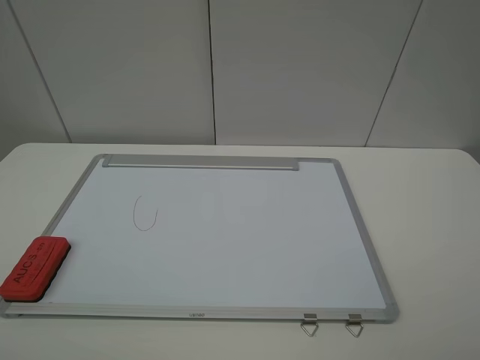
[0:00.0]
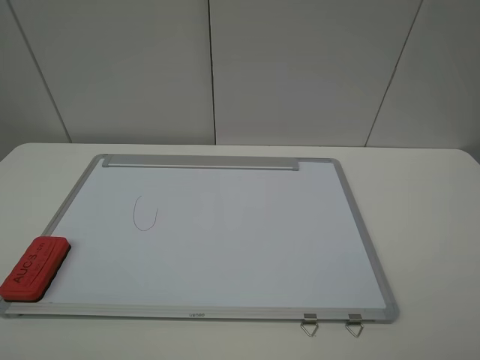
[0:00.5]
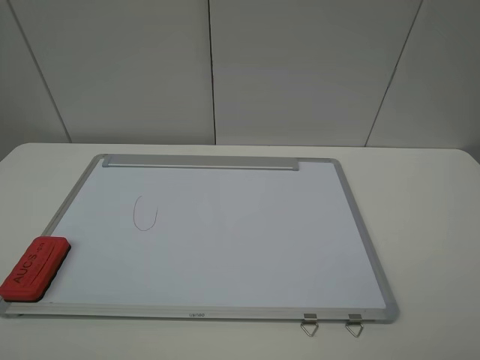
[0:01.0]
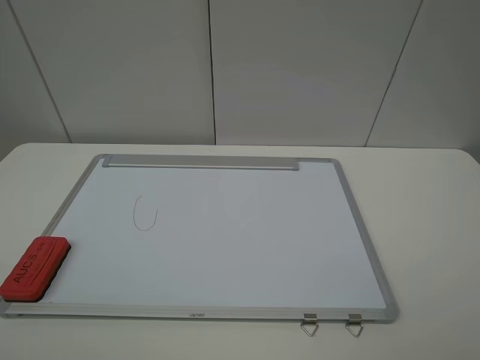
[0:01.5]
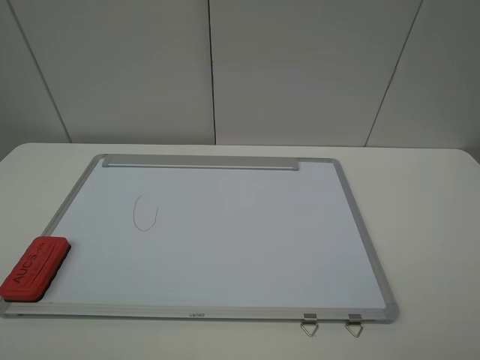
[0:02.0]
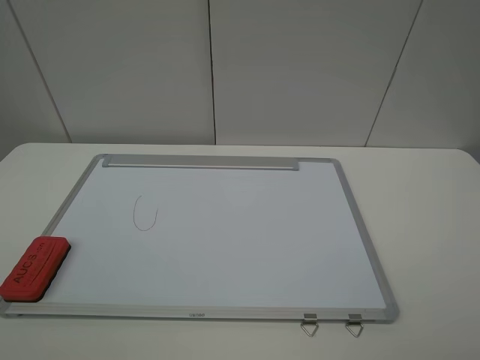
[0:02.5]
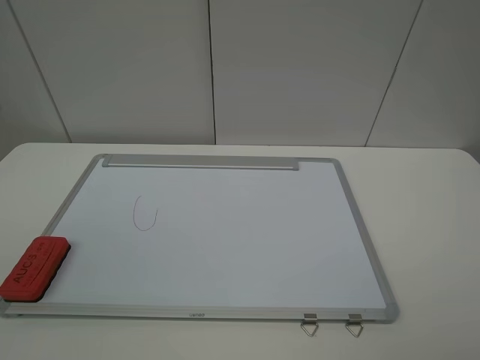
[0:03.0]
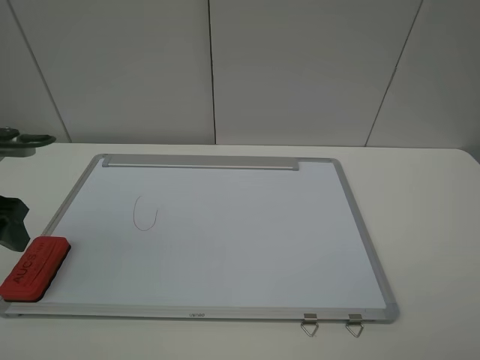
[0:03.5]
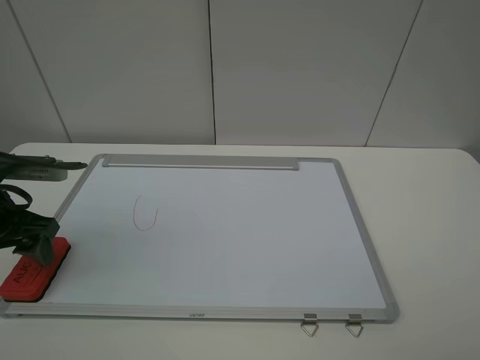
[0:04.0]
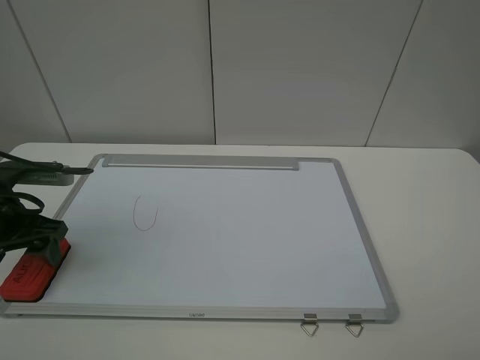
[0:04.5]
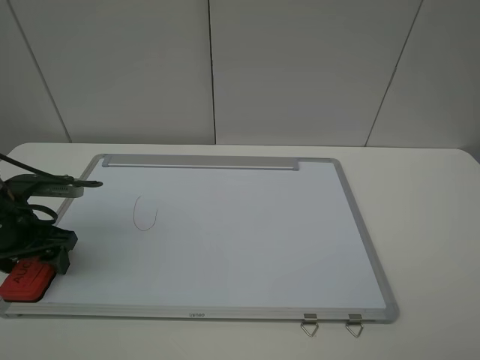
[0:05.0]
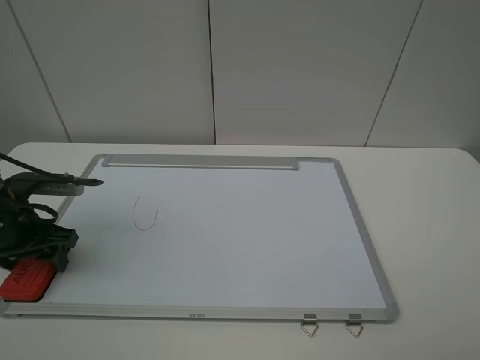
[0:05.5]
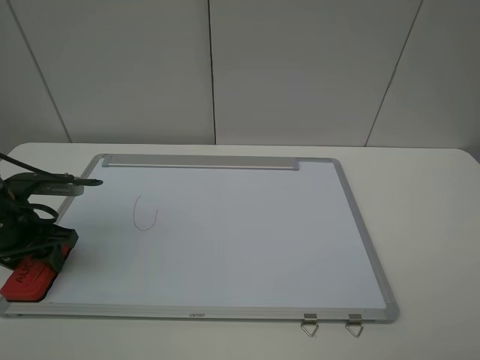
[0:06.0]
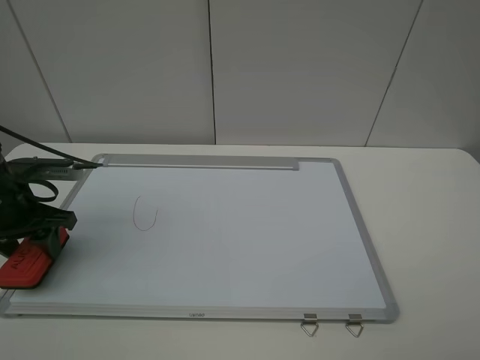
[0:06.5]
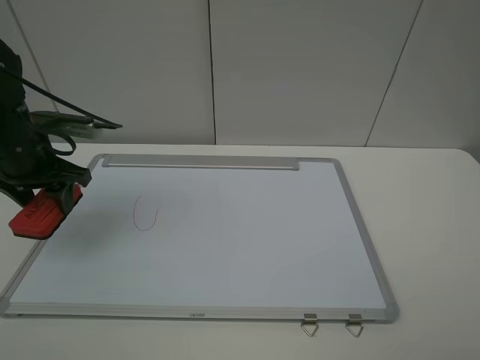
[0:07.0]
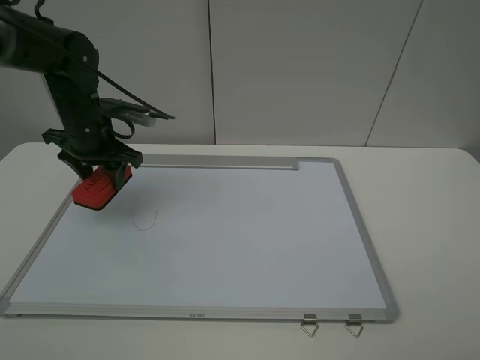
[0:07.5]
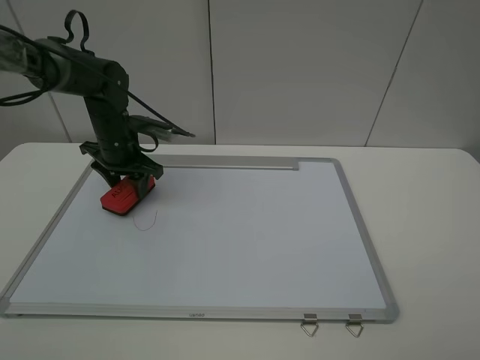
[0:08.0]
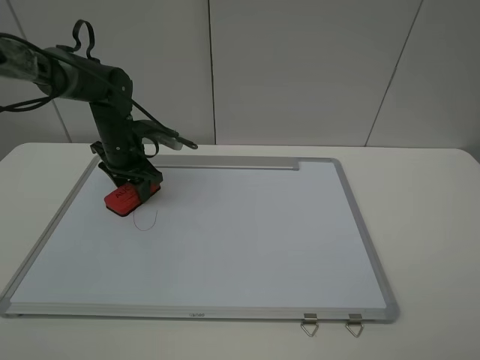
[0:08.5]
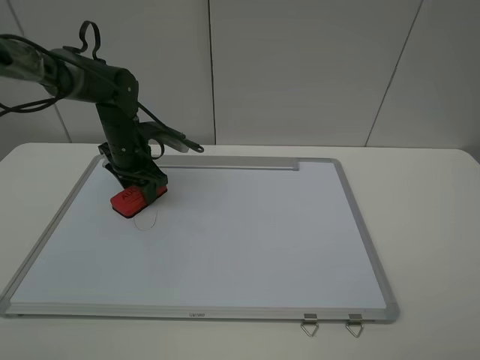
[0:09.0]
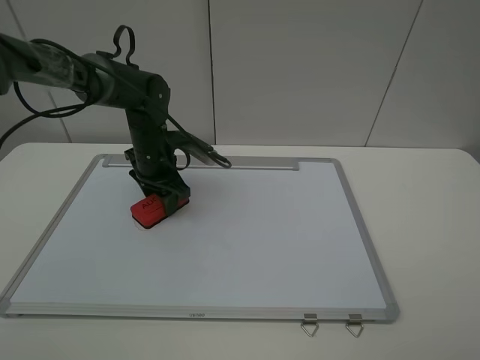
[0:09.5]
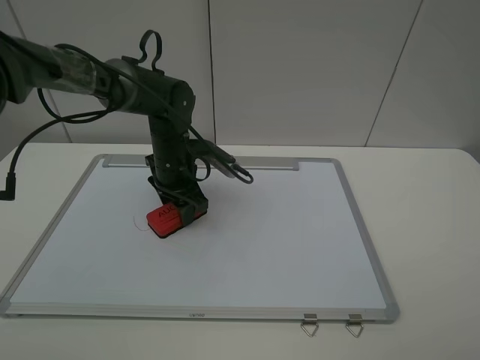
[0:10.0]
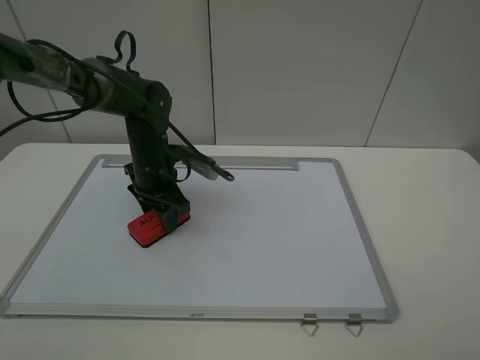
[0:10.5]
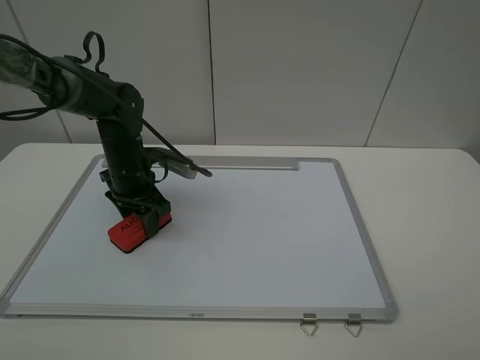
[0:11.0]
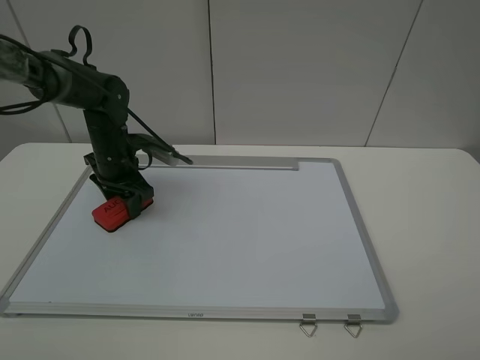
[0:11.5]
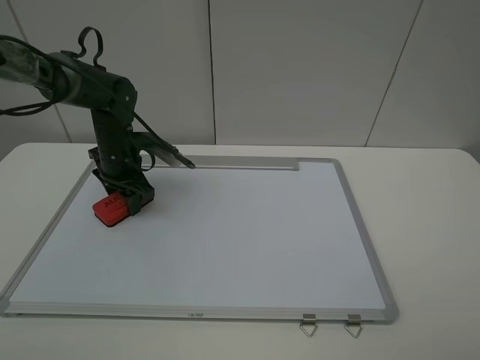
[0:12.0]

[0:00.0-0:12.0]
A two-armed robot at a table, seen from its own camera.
Step, 0:00.0 to 0:05.5: Grasp the eraser with the left gripper.
0:02.0 to 0:04.0: The left gripper heads forward and downward, covering some 25 cm.
0:04.0 to 0:06.0: The left gripper closes up.
0:06.0 to 0:08.0: The left gripper goes roughly 20 cm forward and to the right.
0:08.0 to 0:10.0: The left gripper is displaced to the right by roughly 10 cm.
0:10.0 to 0:12.0: The left gripper travels to the left by some 10 cm.

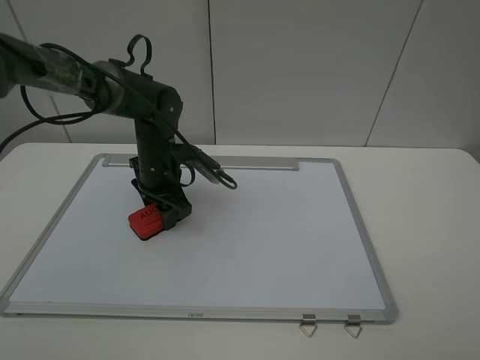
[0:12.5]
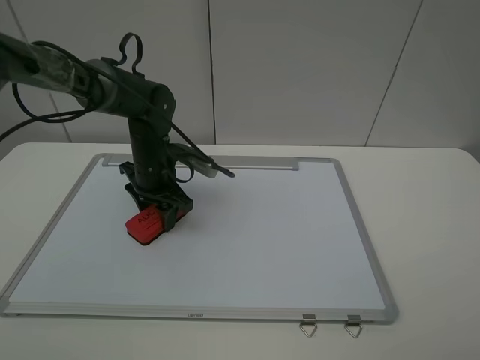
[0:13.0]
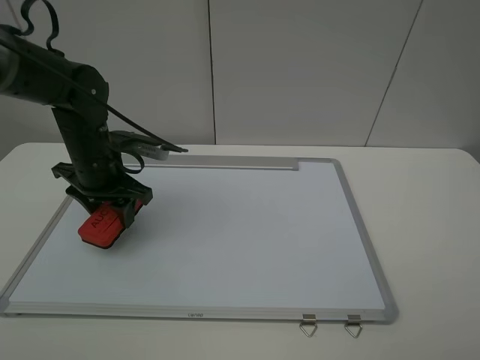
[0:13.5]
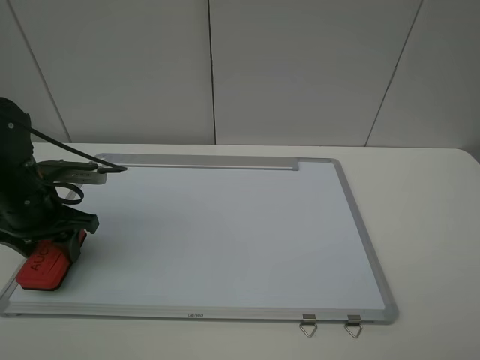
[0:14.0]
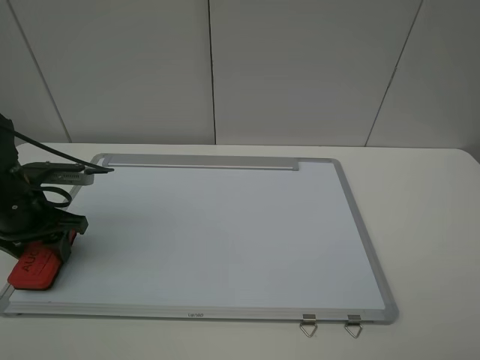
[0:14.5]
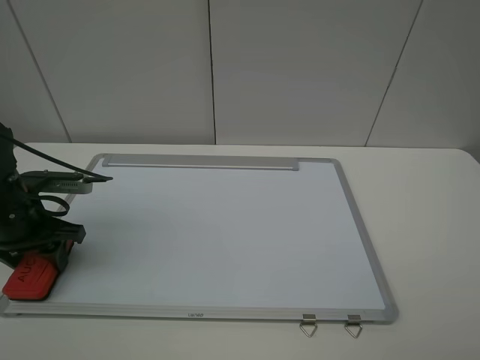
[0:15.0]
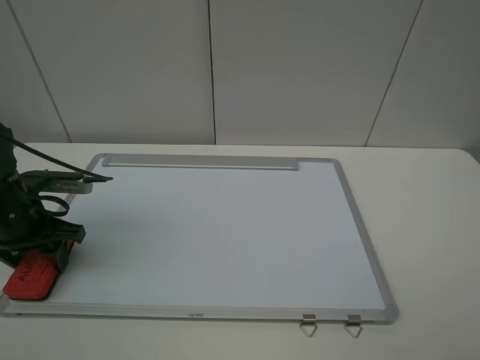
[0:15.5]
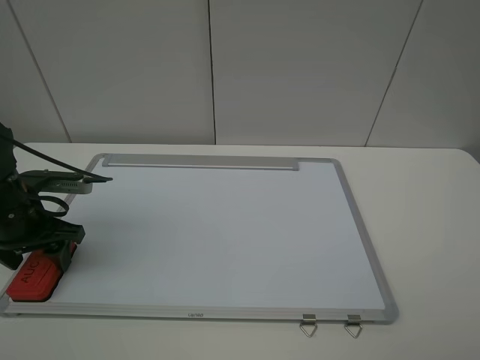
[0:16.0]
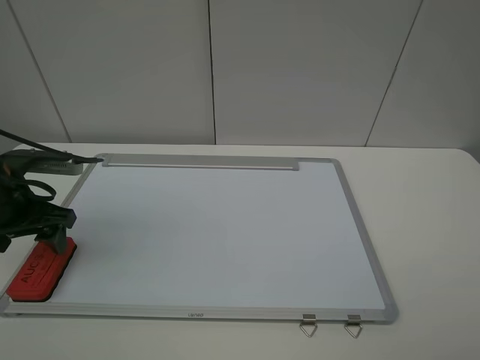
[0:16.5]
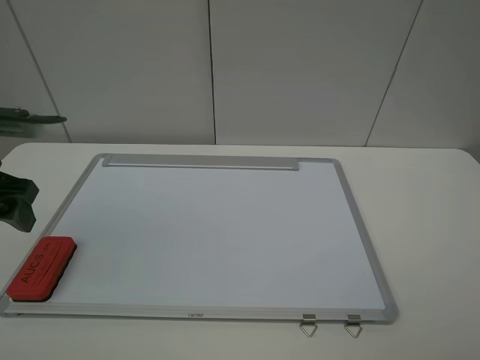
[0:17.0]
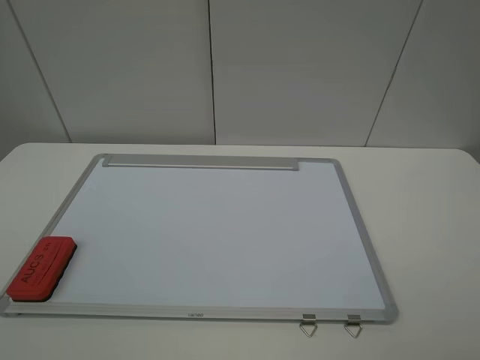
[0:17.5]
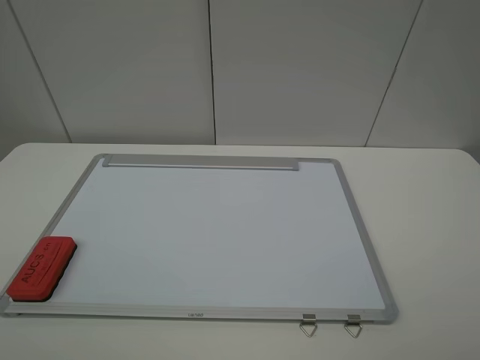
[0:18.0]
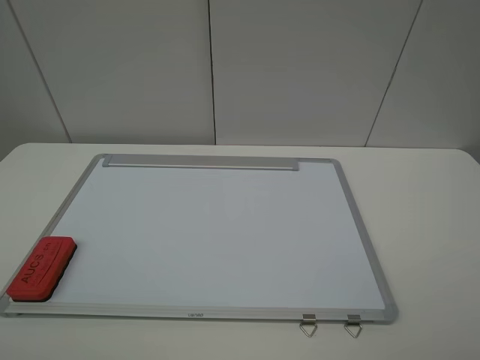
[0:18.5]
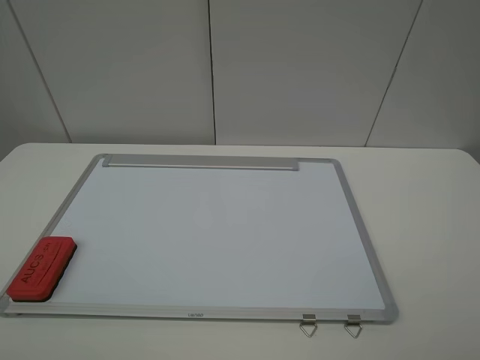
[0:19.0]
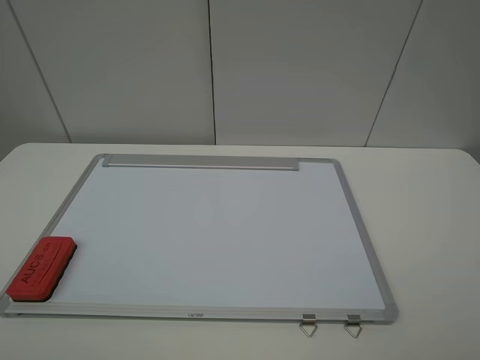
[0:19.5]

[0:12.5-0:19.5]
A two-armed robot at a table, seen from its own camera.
Step, 0:13.5 to 0:16.5: Place the eraser with the left gripper.
0:12.5 to 0:14.5: The left gripper is displaced to the left and backward by roughly 20 cm.
0:14.5 to 0:16.0: The left gripper opens its fingers.
0:16.0 to 0:17.5: The left gripper shifts some 25 cm upward and backward, and opens its fingers.

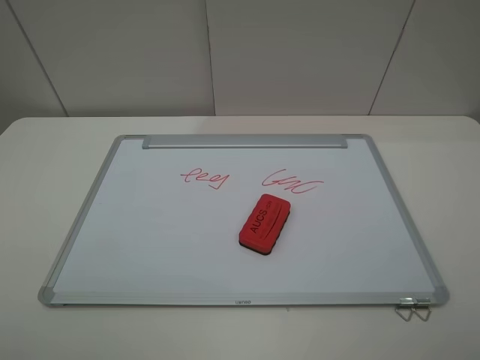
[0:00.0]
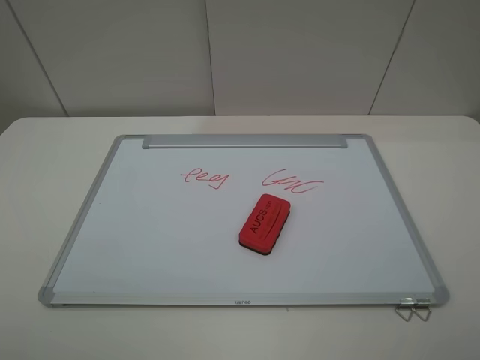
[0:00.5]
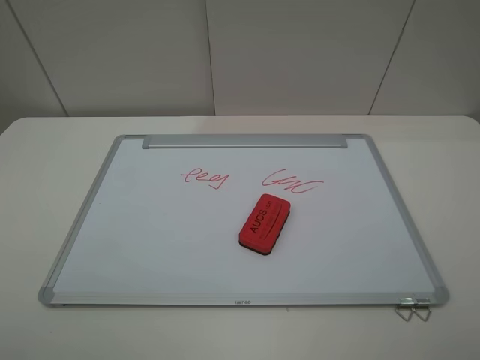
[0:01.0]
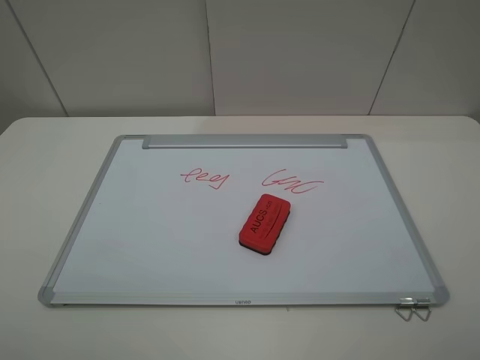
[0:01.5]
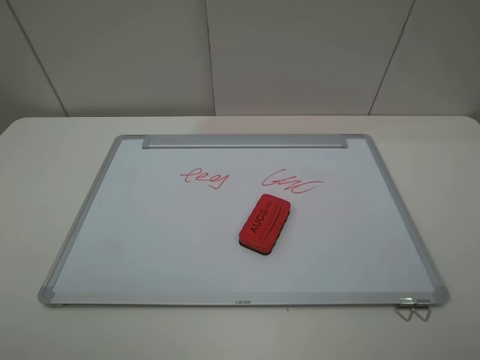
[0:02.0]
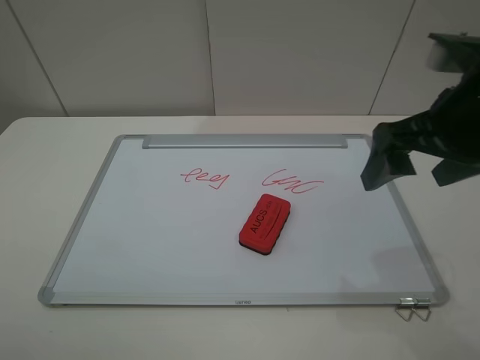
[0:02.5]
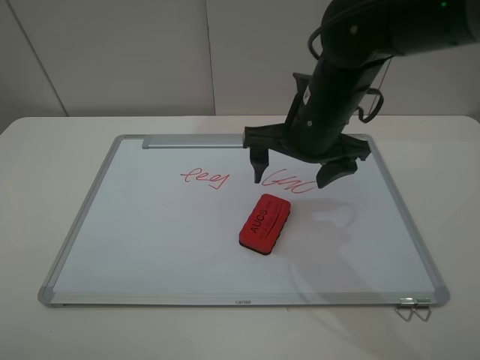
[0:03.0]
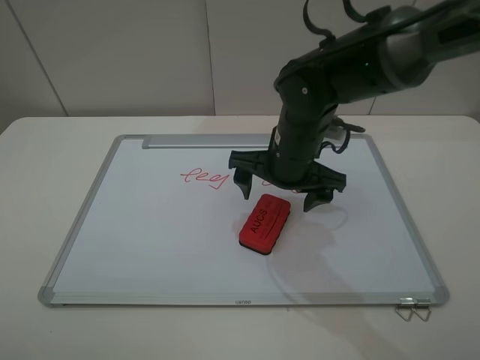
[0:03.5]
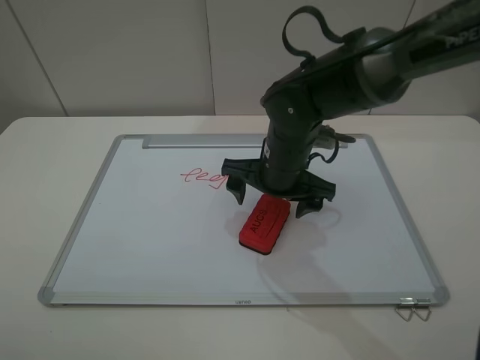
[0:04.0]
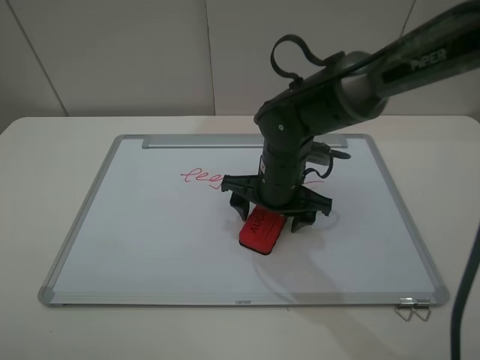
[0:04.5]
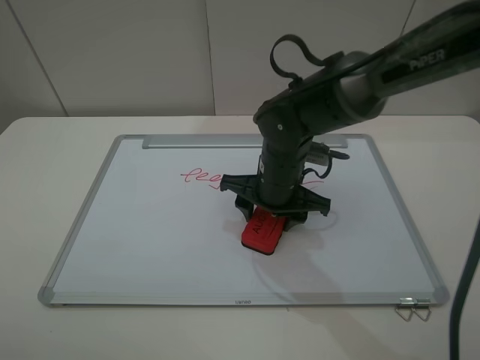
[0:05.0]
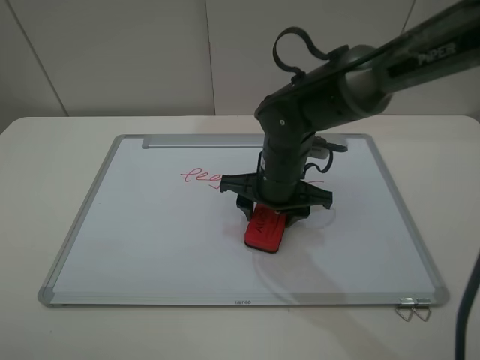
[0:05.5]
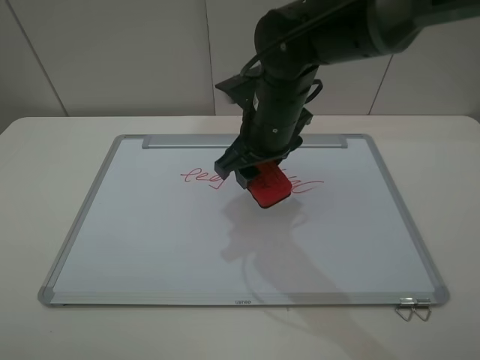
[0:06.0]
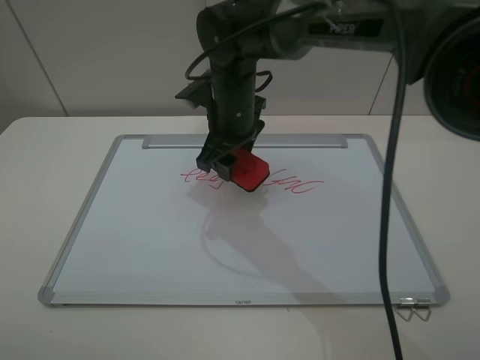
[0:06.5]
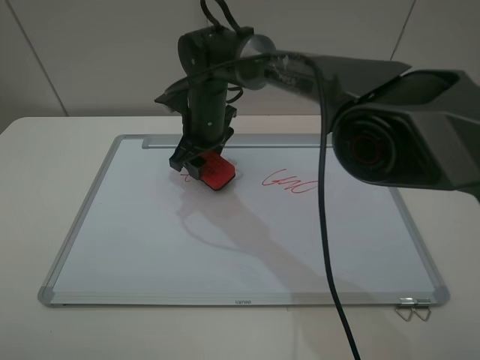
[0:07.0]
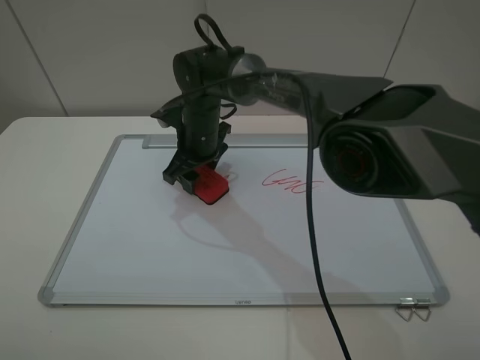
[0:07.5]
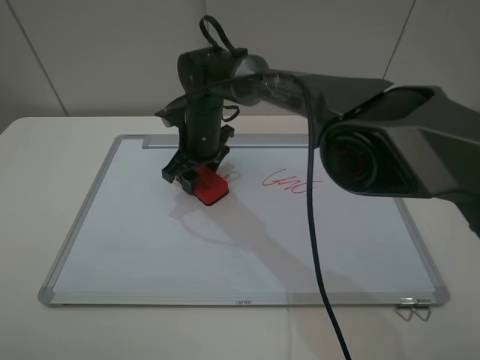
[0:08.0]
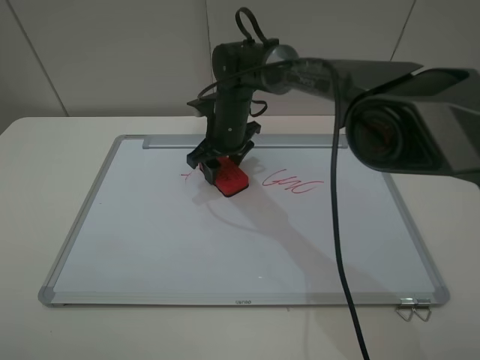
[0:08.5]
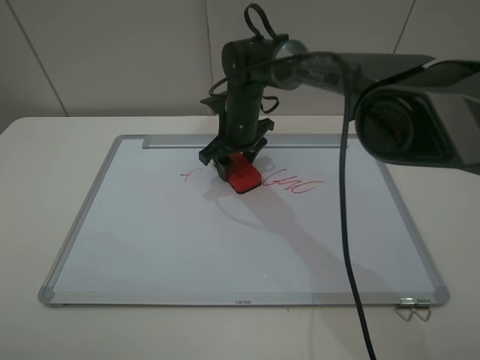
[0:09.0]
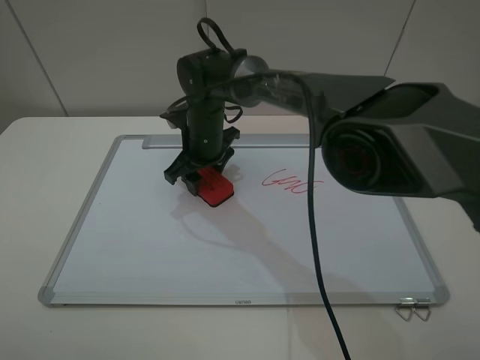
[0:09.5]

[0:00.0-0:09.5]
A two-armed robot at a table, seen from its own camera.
Step, 0:00.0 to 0:04.5: Grasp the eraser with the right gripper.
0:02.0 to 0:04.0: The right gripper is displaced forward, to the left and downward by approximately 40 cm.
0:04.0 to 0:05.5: The right gripper closes.
0:05.5 to 0:07.5: The right gripper moves to the left and forward, some 15 cm.
